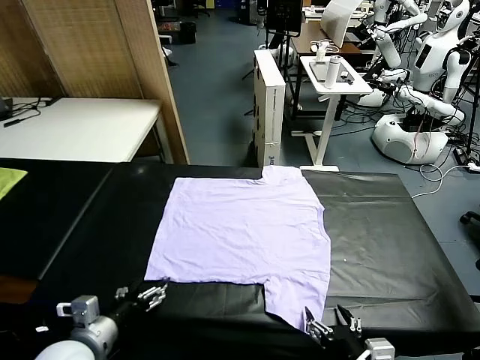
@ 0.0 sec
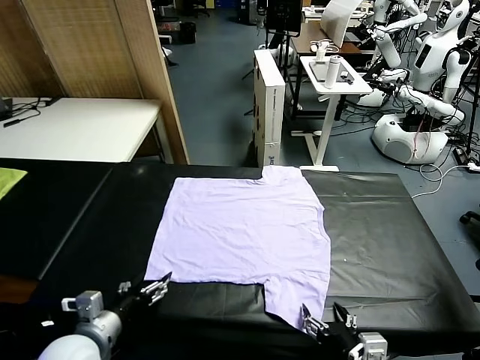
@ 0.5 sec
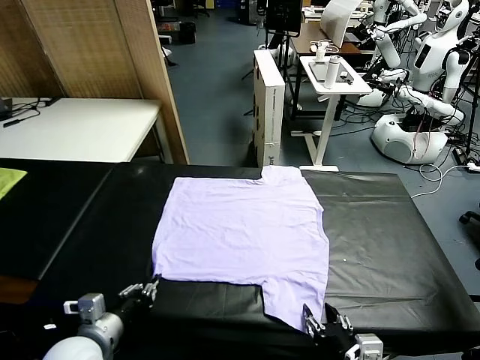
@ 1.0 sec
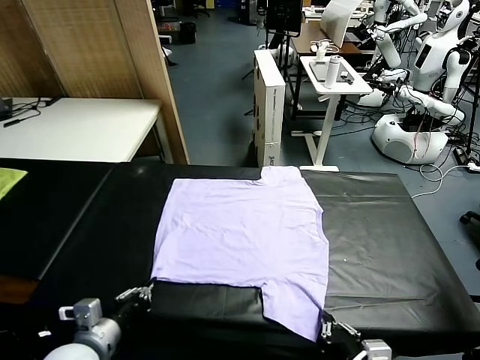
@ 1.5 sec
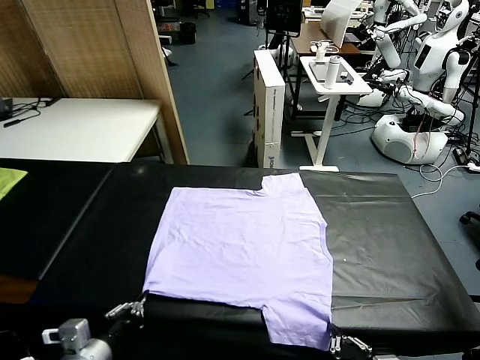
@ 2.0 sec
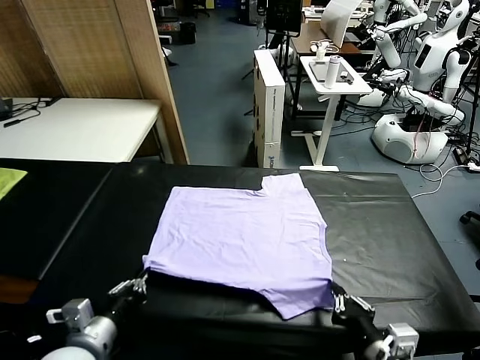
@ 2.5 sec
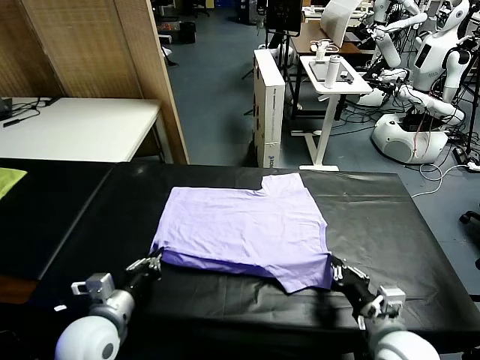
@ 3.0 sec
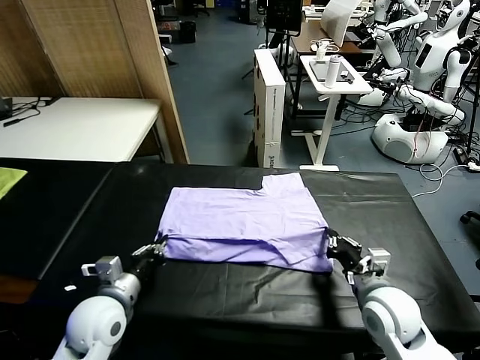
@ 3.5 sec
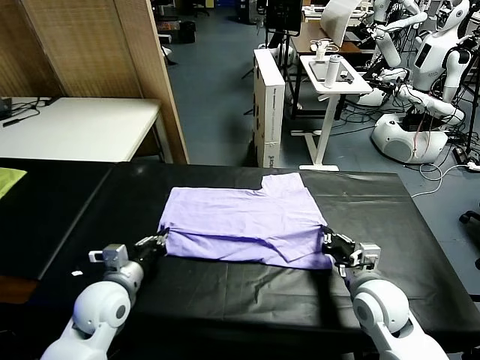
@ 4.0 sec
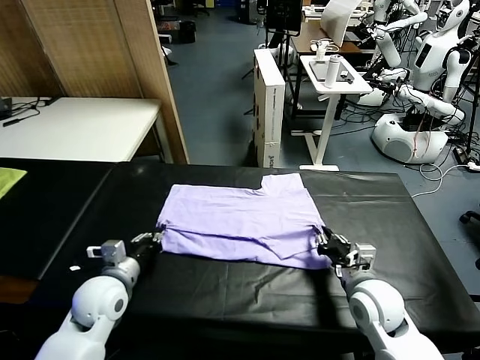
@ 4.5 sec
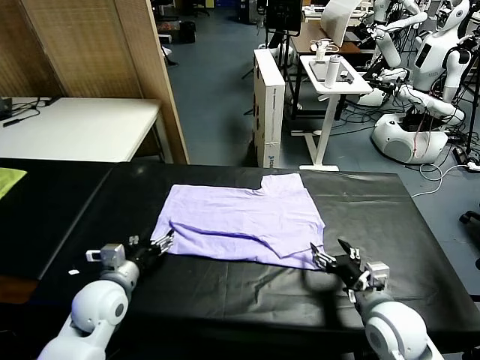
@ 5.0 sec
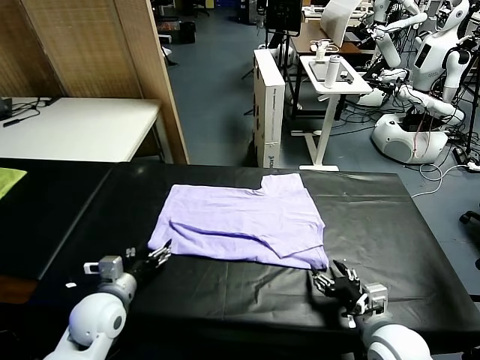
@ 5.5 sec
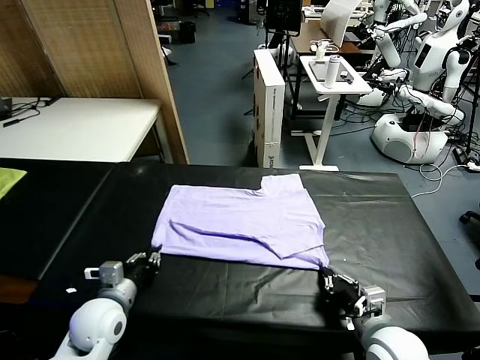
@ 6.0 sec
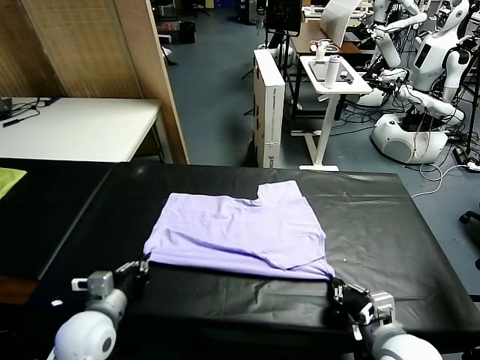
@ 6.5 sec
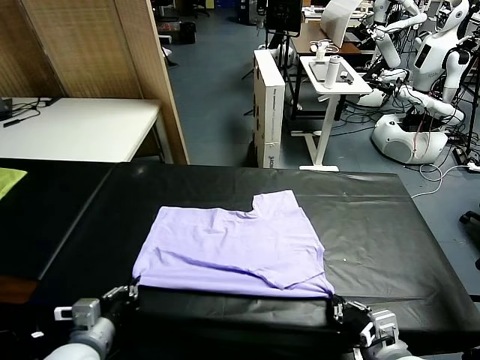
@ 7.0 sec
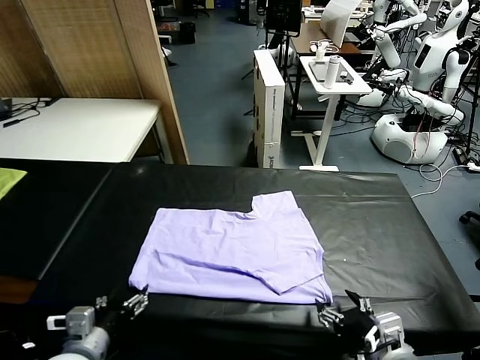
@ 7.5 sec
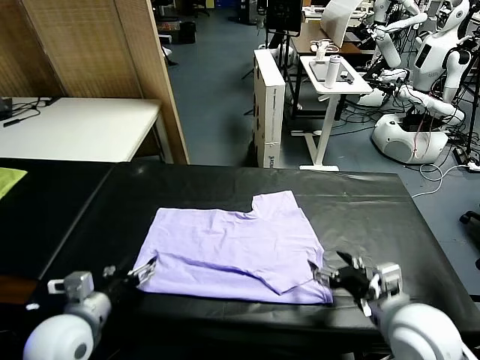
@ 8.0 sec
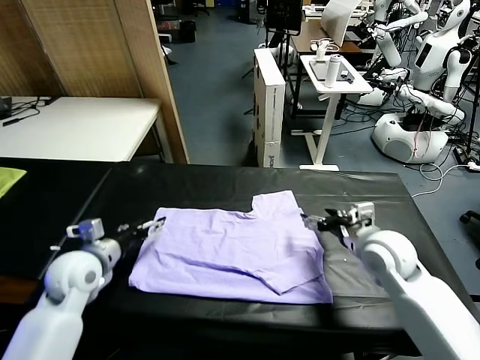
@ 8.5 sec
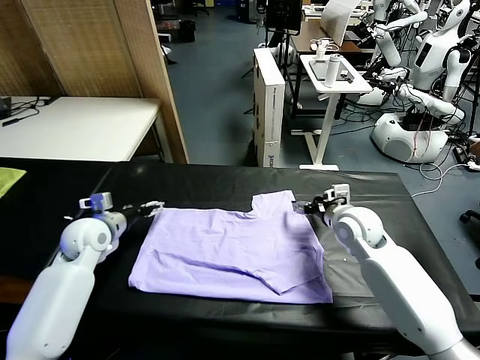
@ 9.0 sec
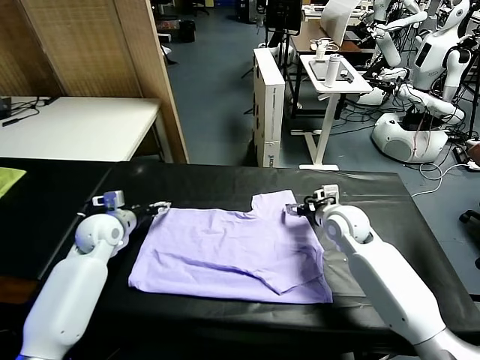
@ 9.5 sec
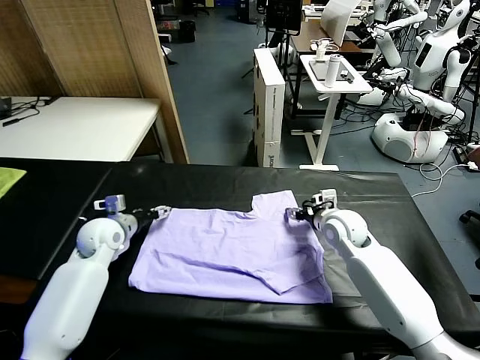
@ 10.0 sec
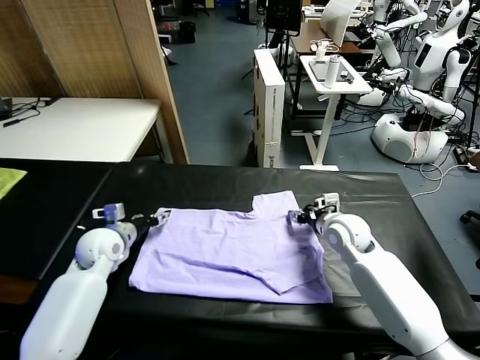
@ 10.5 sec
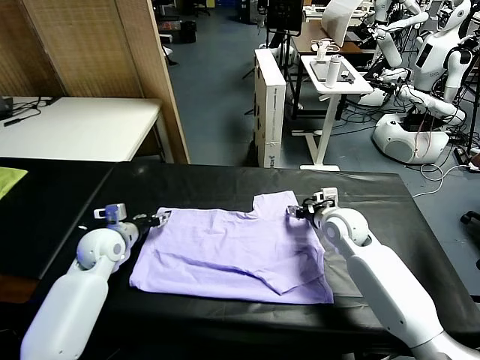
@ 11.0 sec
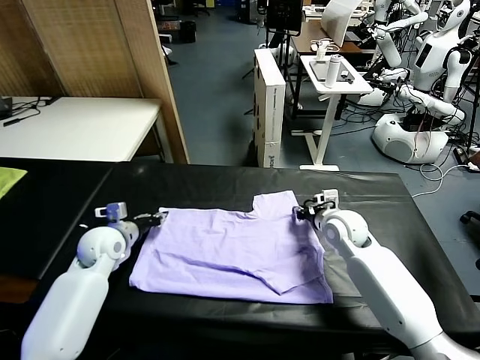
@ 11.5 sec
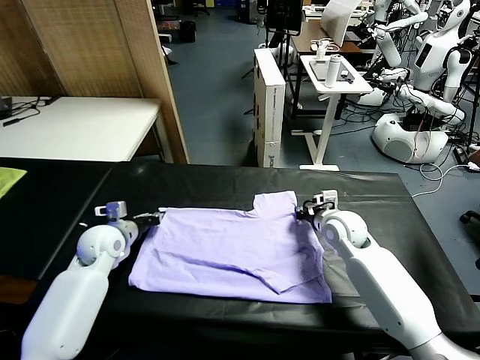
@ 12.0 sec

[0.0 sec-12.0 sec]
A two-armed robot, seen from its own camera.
Task of the whole recording: fold and organize the clothes.
Step, 0.0 sec to 1.5 sec: use both grippers simultaneously to clamp the lower edge of the clothing fabric.
Step, 2.0 sec to 4.5 sec: use both grippers to drag the lower edge of the fabric forward and fold it over the upper edge.
Step, 5.0 sec to 7.0 sec: Drag the clothes downward with both gripper.
2.0 sec to 4.0 sec: The two grippers go about 20 cm forward.
4.0 sec to 6.0 sec: The left gripper opens, then closes again. The right gripper goes about 10 cm backward, and opens, then closes again.
6.0 sec to 8.0 sec: The right gripper travels upward and forward by about 10 cm, and opens, while the left gripper heads upward, covering approximately 5 cm, travels backward and back again, some 10 cm each way, and opens up.
8.0 sec to 10.0 sec: Both grippers move forward, some 20 cm.
10.0 sec to 12.0 sec: The right gripper closes. Meanwhile the left gripper closes up.

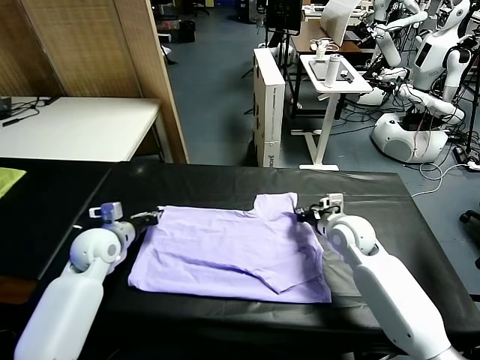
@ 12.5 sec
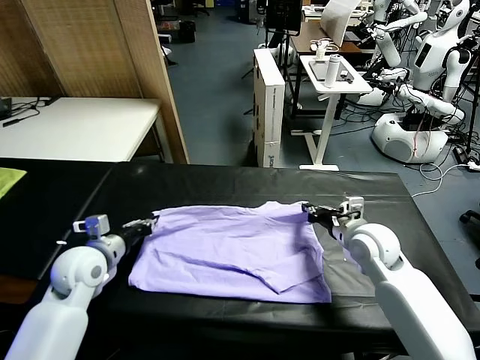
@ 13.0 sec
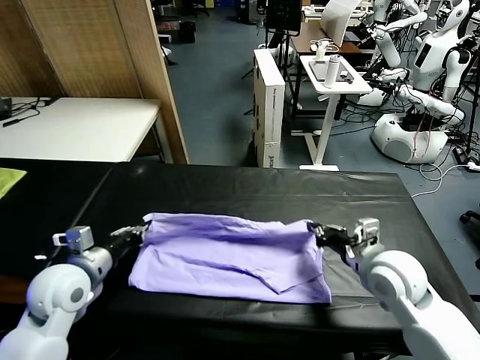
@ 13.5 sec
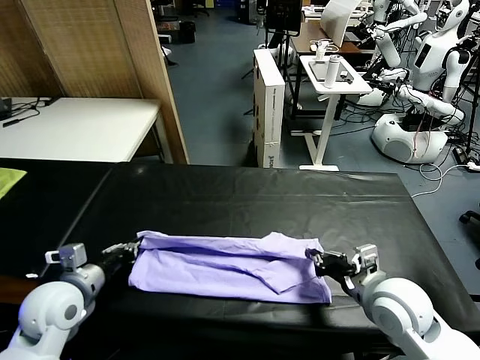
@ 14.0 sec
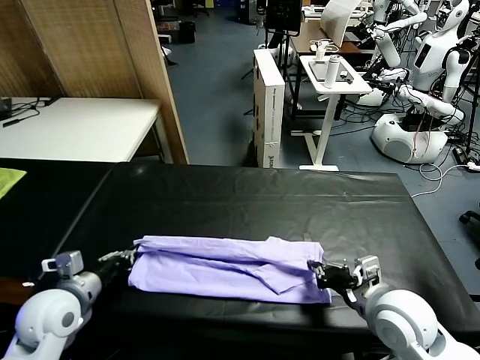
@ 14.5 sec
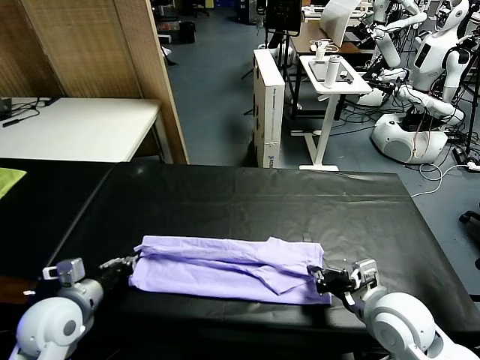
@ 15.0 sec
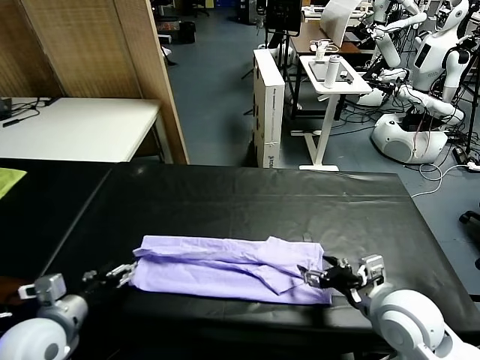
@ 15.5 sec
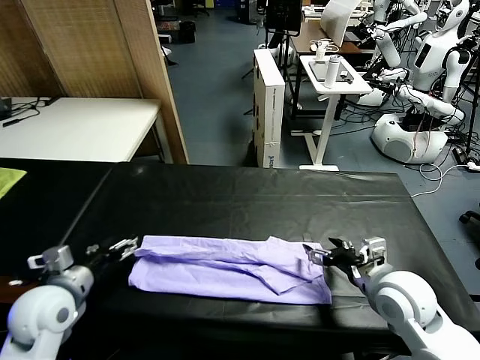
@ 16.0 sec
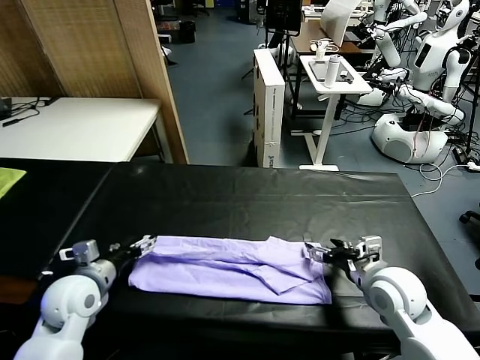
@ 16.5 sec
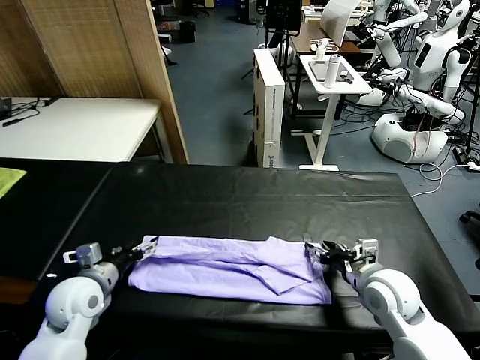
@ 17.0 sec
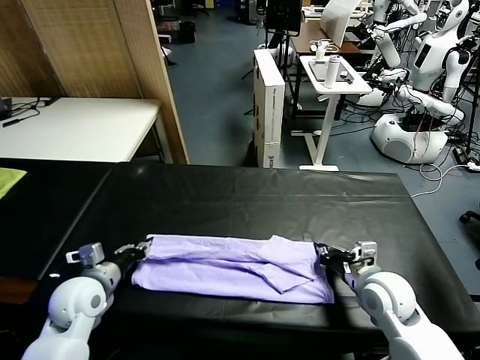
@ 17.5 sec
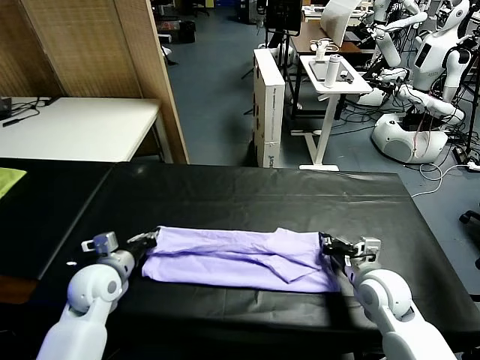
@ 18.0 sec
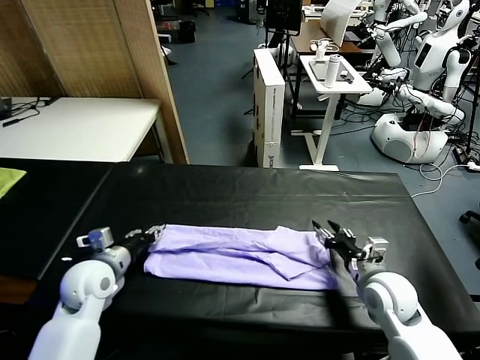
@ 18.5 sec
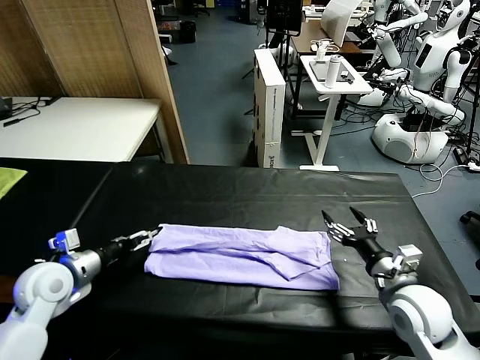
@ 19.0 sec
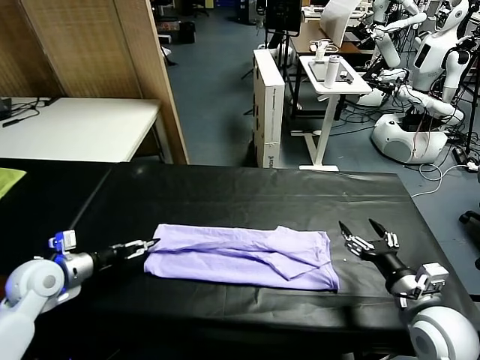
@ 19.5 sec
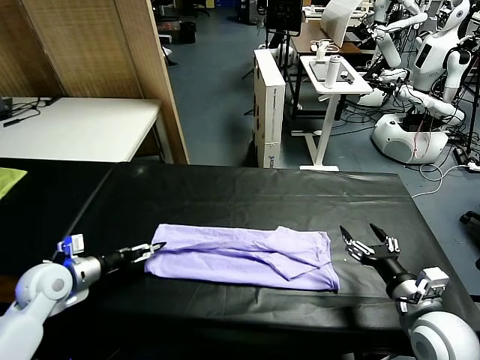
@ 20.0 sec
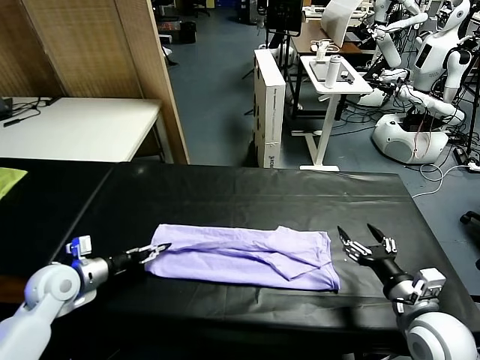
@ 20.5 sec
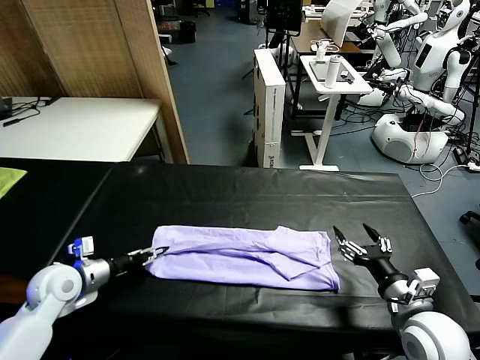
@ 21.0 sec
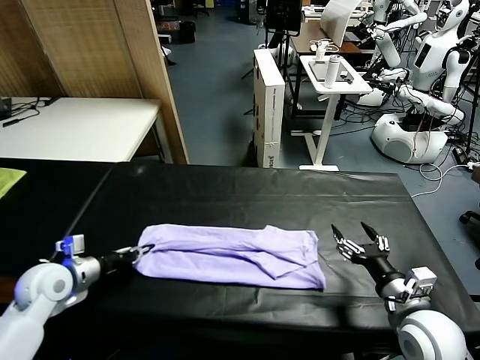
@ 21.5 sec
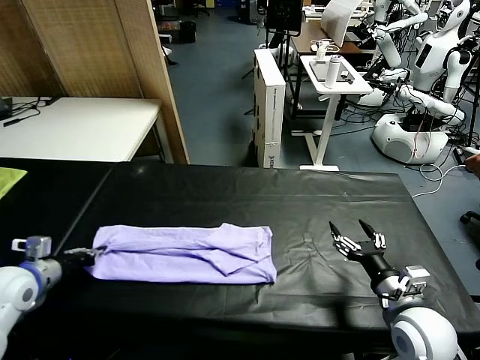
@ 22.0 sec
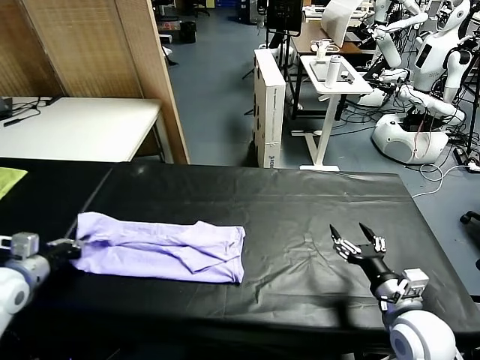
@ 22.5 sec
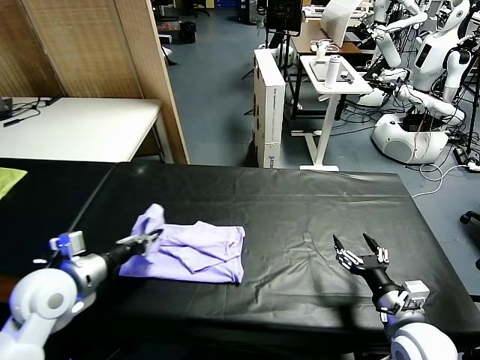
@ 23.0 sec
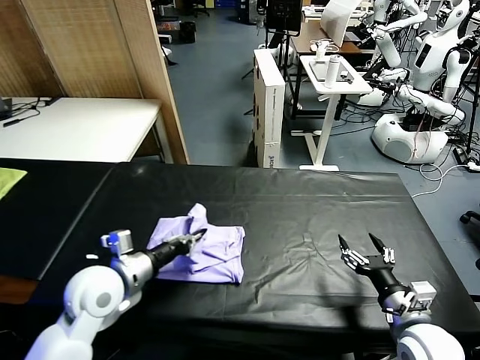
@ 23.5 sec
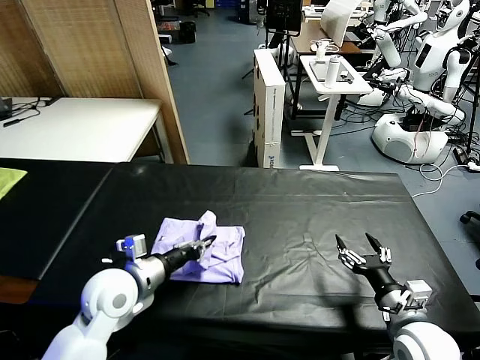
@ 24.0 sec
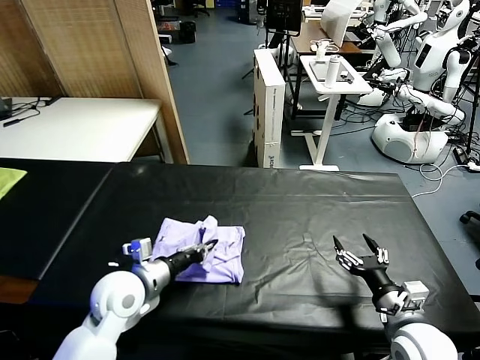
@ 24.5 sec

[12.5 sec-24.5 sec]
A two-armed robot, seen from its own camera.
Task of the whole recording: fold and organize the clothes.
Step, 12.5 sec to 15.0 sec: use both grippers to drag the upper edge of the fabric backward and fold it over the lower edge.
Step, 15.5 sec to 21.0 sec: use the left gripper to clamp the left edge of the fabric.
12.5 sec to 14.5 sec: The grippers both shift backward by roughly 15 cm.
14.5 sec to 16.5 sec: The right gripper shifts some 5 cm forward, and opens its fingers; the left gripper opens its fingers.
16.5 sec to 18.5 sec: The left gripper closes, then reopens; the right gripper closes, then reopens.
18.5 sec to 20.5 sec: The right gripper travels backward by some 10 cm, while the left gripper shifts approximately 10 cm to the left.
20.5 sec to 22.5 sec: The left gripper is displaced upward and to the left by roughly 10 cm, and closes its fingers.
22.5 sec to 24.5 sec: The left gripper goes some 20 cm to the right.

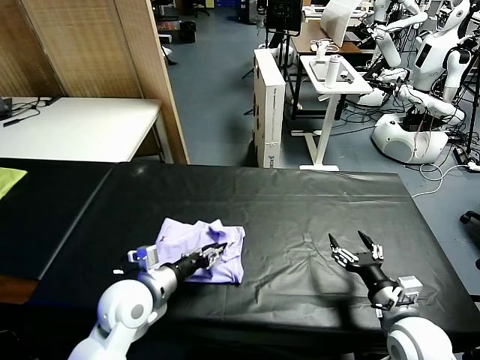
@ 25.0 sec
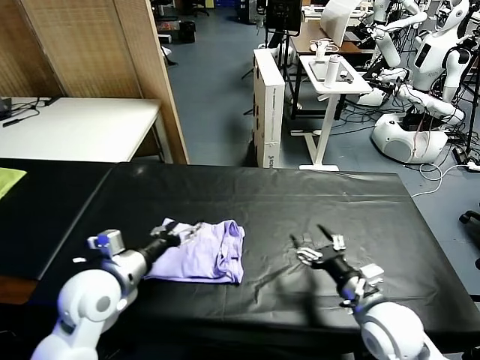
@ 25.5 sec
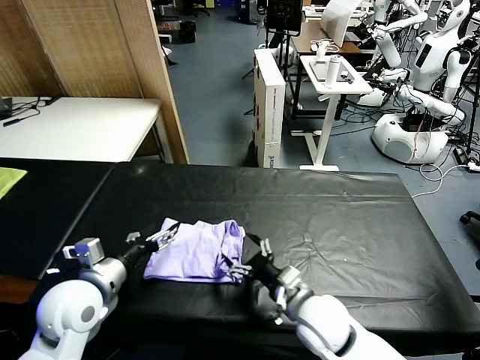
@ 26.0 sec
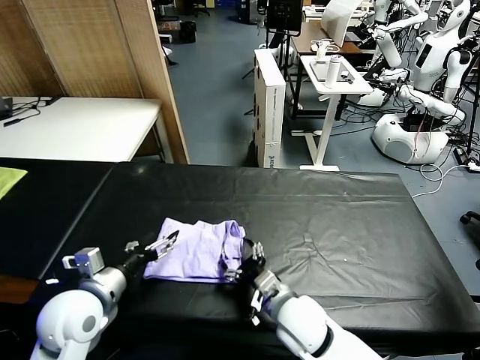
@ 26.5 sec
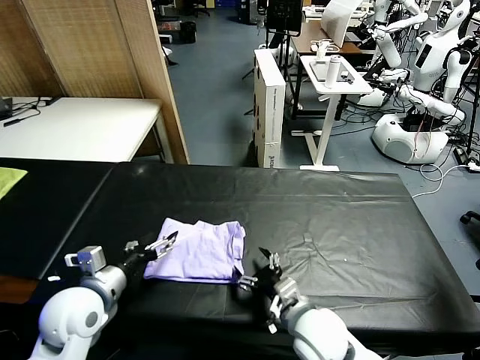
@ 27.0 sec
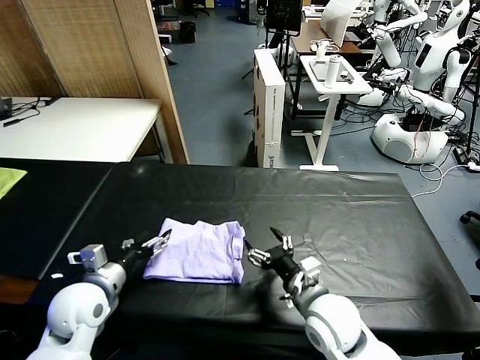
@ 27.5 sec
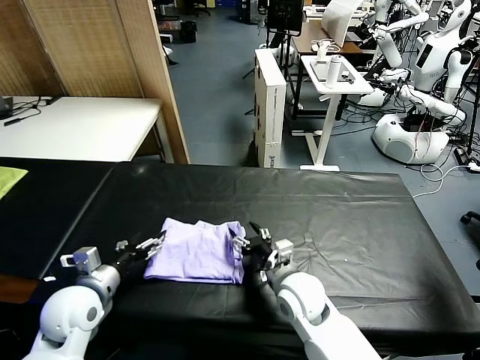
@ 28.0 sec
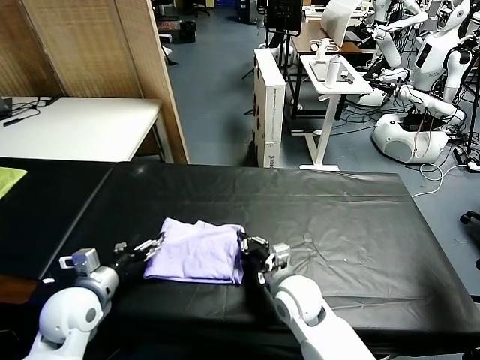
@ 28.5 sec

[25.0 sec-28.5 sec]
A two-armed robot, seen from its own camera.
Task of the whole recording: fold and organize the clothes.
25.0 sec to 27.0 sec: The right gripper moves to the left, about 15 cm. Meanwhile the left gripper moves to the left, roughly 5 cm, and opens its fingers.
27.0 sec to 28.5 sec: The right gripper is displaced forward by roughly 10 cm, and closes.
